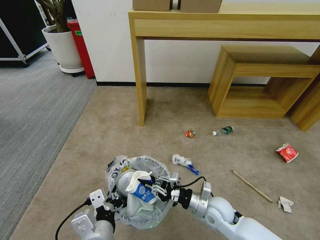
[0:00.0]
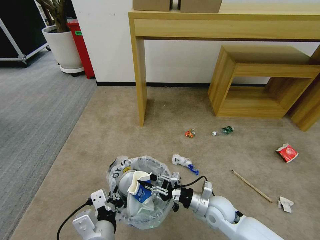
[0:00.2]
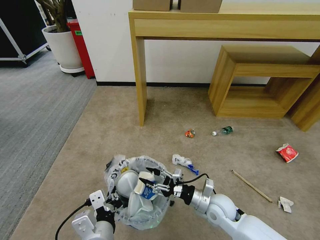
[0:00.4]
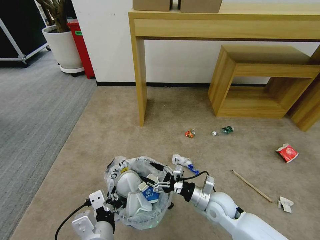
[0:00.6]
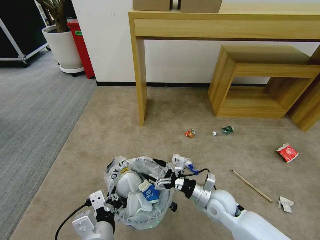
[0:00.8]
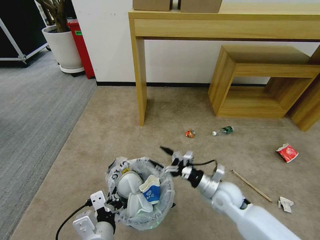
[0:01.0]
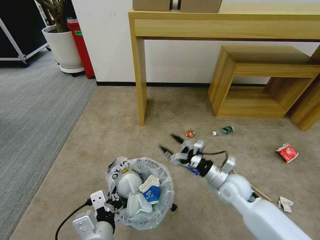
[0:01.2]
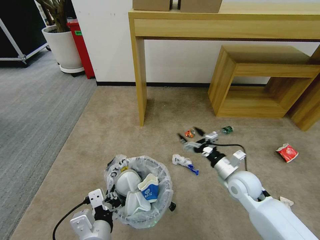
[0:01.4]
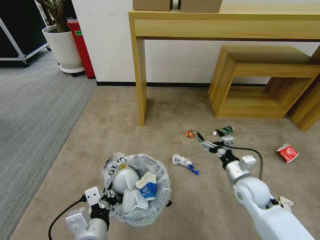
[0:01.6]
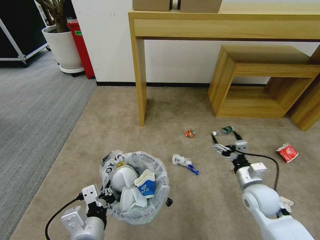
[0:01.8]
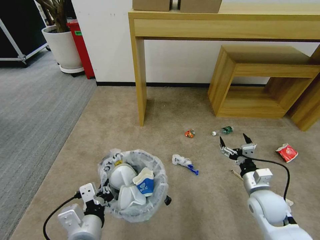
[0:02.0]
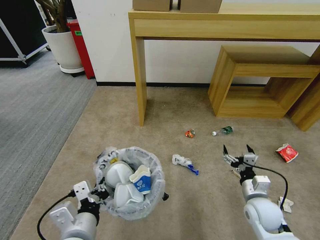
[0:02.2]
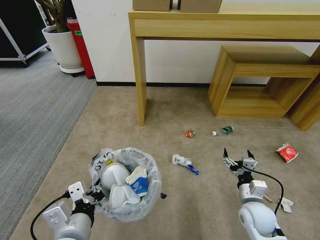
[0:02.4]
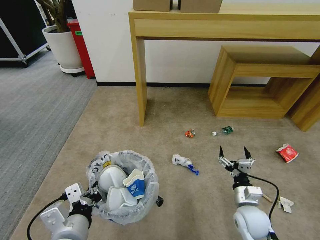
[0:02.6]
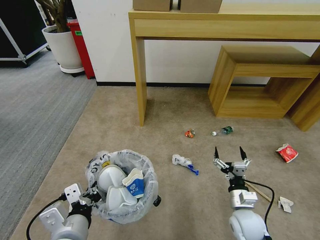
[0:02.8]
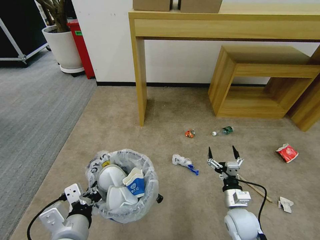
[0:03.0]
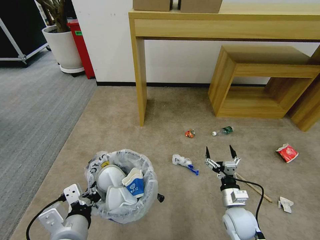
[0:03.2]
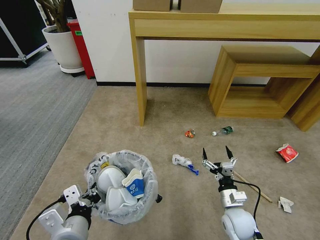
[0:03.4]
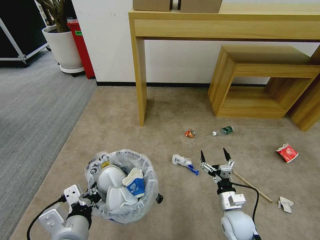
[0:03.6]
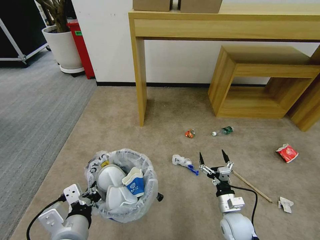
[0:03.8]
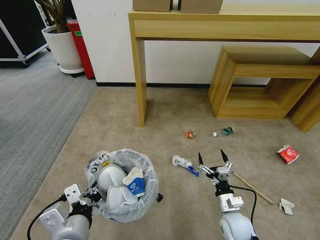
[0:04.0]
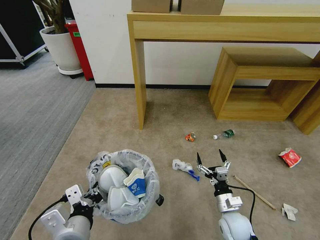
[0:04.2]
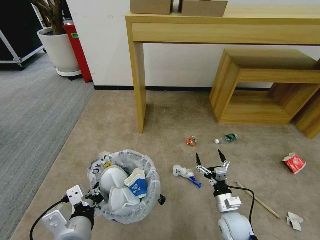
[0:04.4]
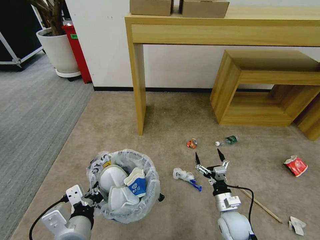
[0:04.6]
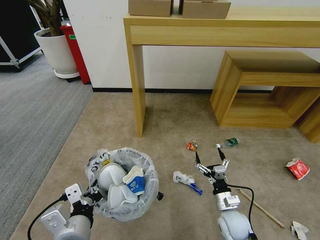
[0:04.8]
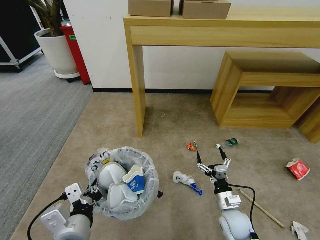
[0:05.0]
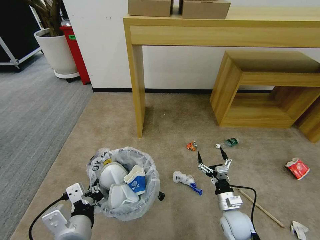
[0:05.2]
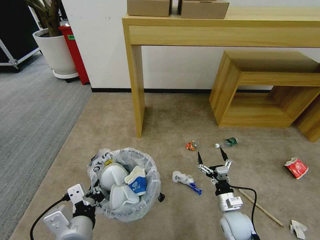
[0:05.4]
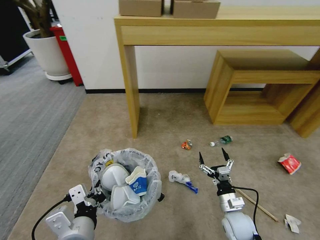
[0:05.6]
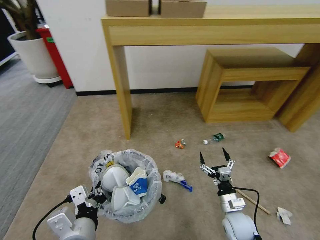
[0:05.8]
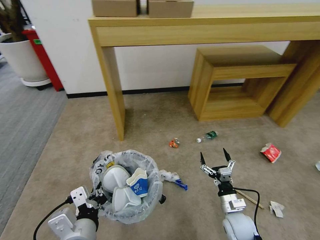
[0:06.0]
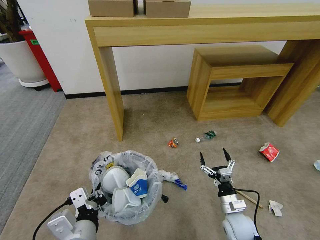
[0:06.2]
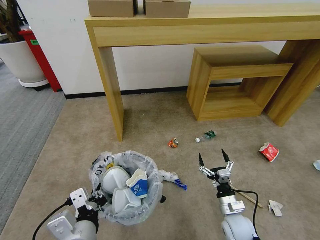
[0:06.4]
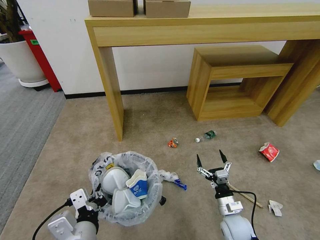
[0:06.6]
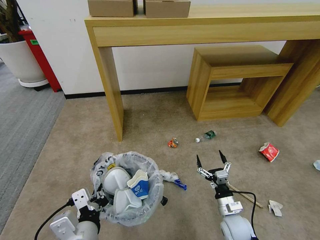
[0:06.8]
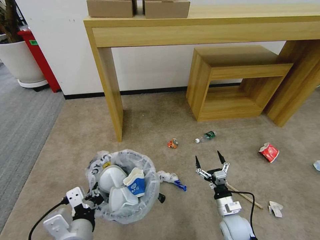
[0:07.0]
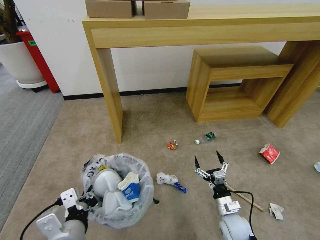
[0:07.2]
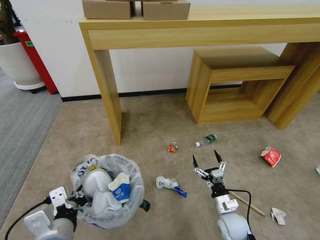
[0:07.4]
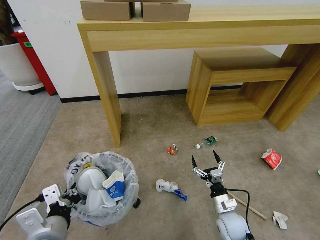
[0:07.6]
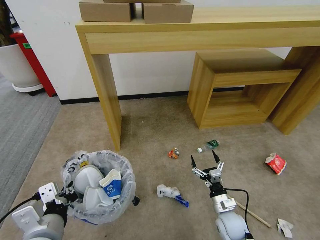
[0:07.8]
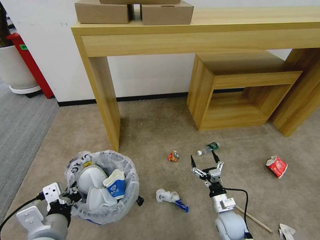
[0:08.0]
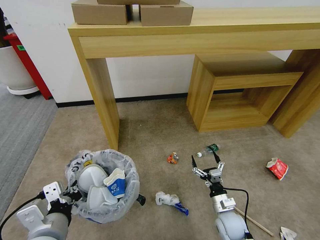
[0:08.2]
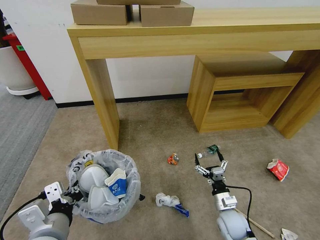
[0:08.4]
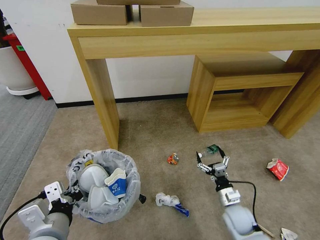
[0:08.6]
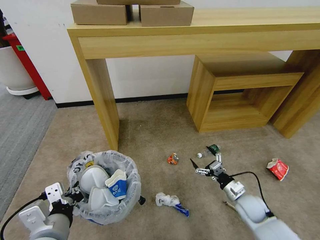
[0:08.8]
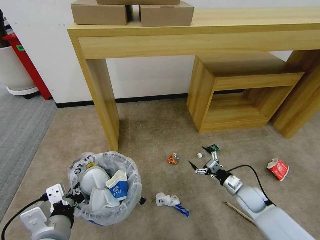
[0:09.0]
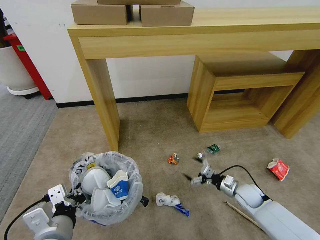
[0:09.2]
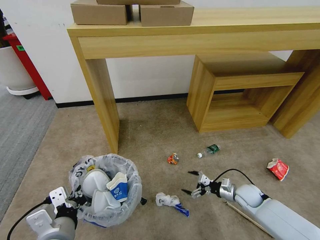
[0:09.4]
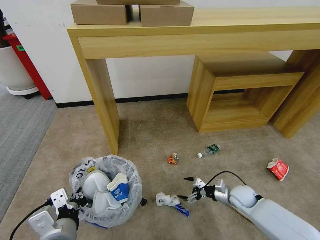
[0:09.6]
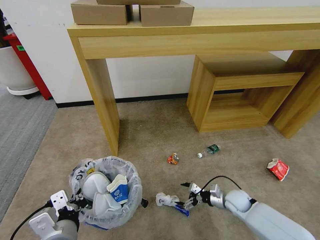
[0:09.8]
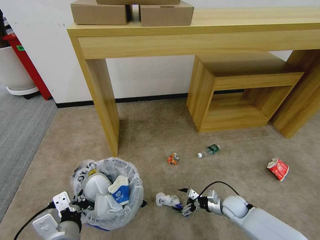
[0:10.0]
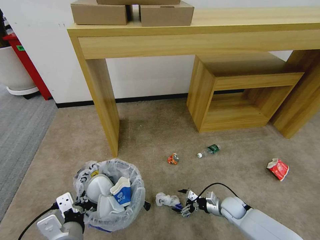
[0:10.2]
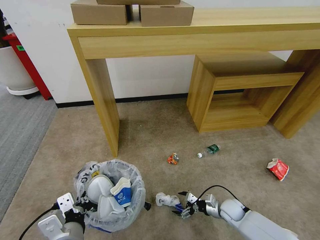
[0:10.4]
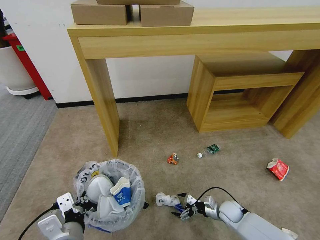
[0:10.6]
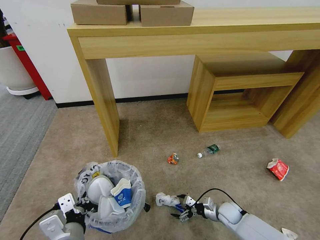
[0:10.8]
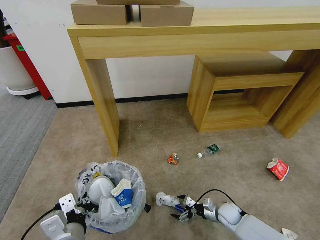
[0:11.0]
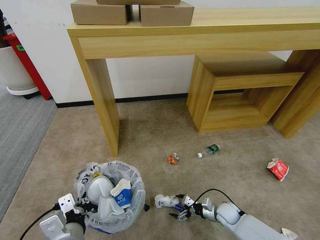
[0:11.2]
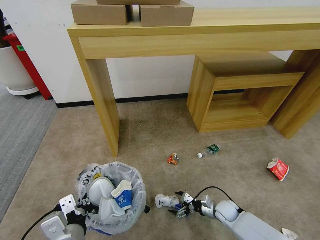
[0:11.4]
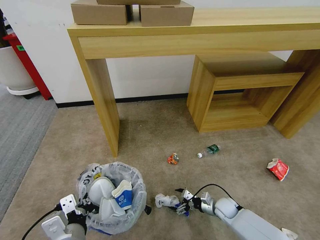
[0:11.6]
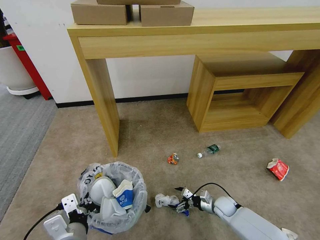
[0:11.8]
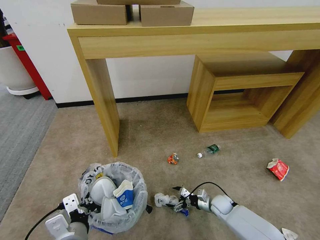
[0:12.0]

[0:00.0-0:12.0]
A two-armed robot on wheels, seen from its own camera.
Task of the whole recording: Pick up the trash bin and place the garbage on the floor into it.
0:00.0 to 0:01.6: The right gripper shifts roughly 10 cm to the right and upward, and opens up.
0:01.6 to 0:03.0: The right gripper goes some 10 cm backward and downward.
0:06.0 to 0:07.6: The left gripper travels to the left by roughly 5 cm.
0:07.6 to 0:09.0: The right gripper heads to the right and forward, covering about 10 cm.
0:09.0 to 0:10.4: The right gripper travels downward by approximately 10 cm.
0:10.4 to 0:12.0: There are only small adjustments of the grippers.

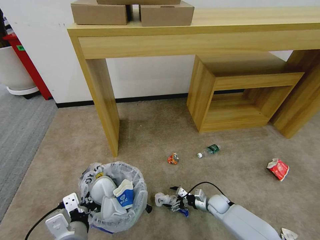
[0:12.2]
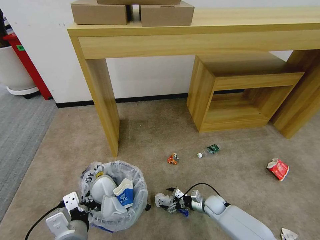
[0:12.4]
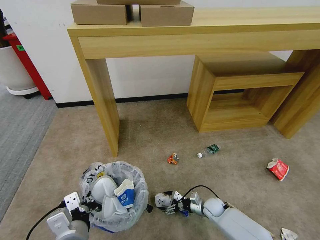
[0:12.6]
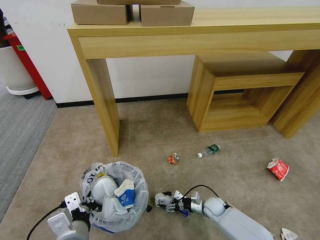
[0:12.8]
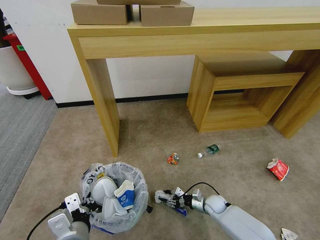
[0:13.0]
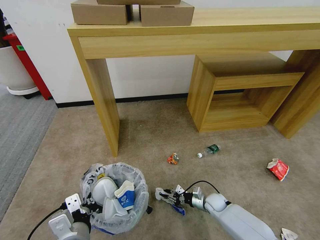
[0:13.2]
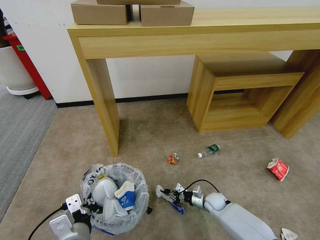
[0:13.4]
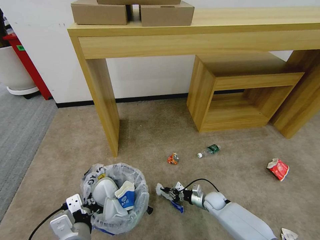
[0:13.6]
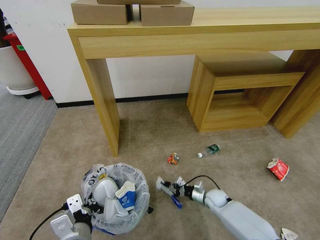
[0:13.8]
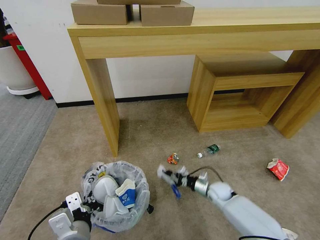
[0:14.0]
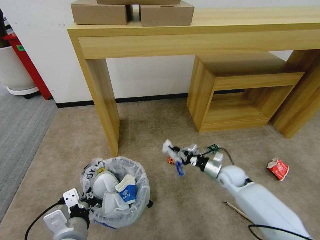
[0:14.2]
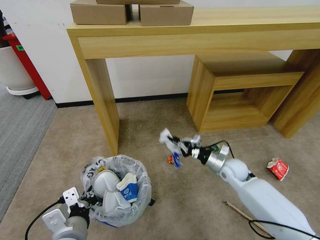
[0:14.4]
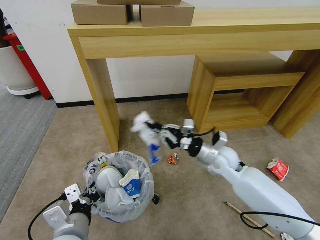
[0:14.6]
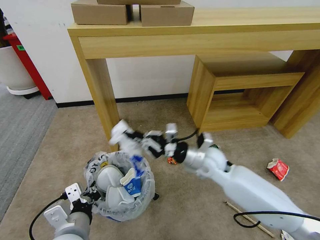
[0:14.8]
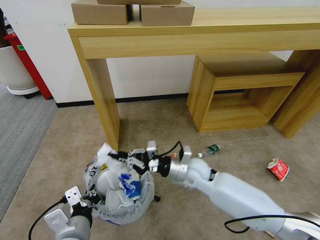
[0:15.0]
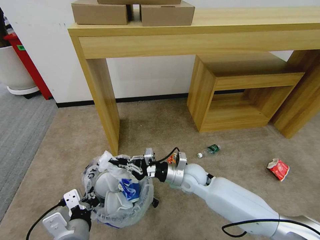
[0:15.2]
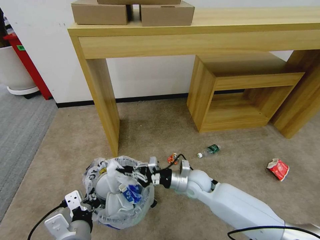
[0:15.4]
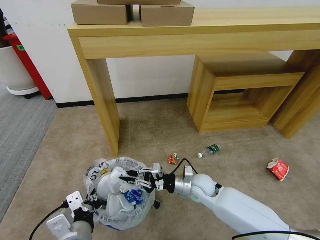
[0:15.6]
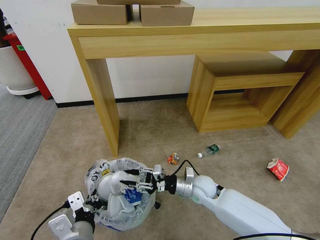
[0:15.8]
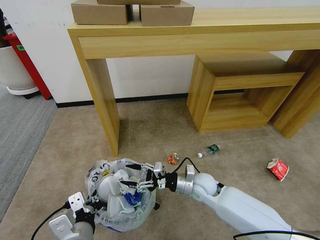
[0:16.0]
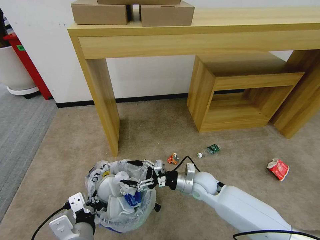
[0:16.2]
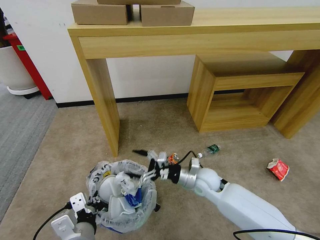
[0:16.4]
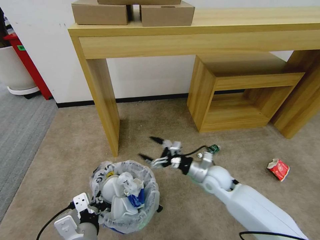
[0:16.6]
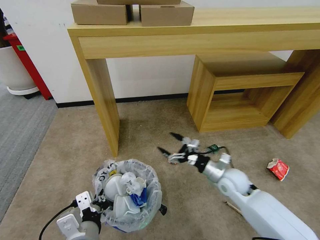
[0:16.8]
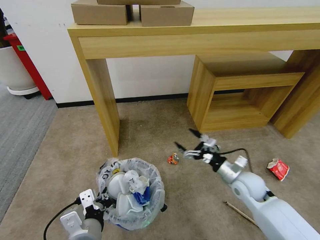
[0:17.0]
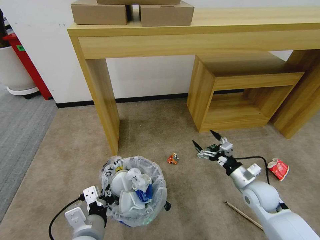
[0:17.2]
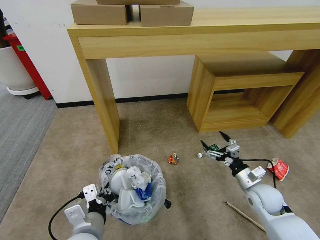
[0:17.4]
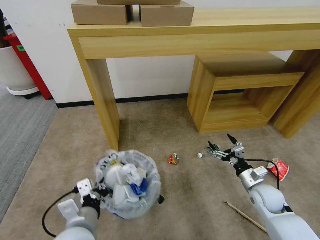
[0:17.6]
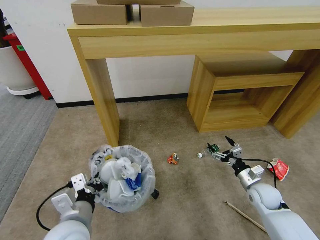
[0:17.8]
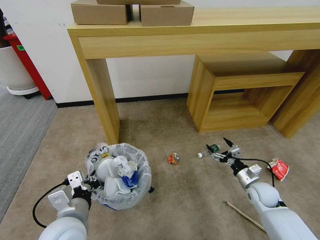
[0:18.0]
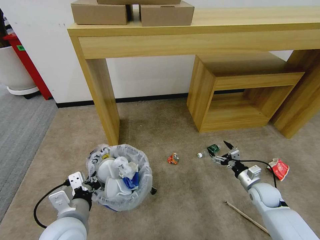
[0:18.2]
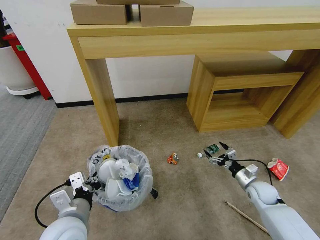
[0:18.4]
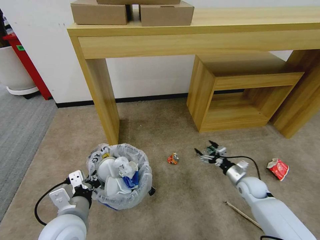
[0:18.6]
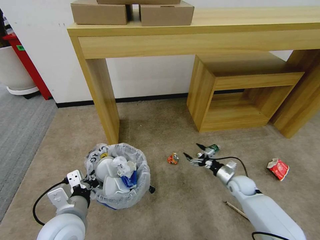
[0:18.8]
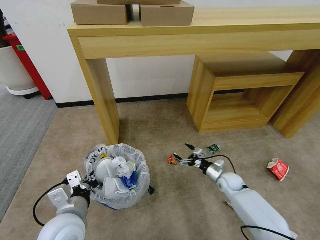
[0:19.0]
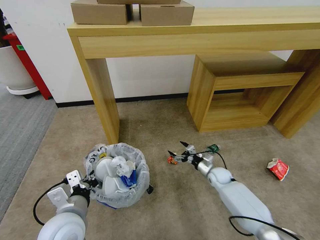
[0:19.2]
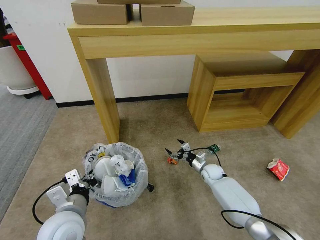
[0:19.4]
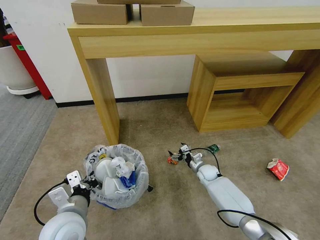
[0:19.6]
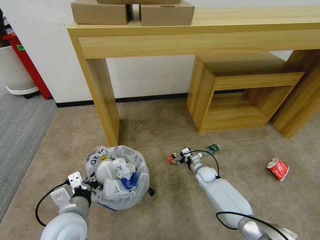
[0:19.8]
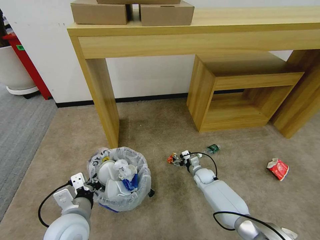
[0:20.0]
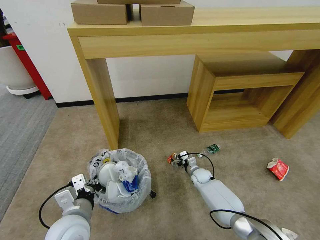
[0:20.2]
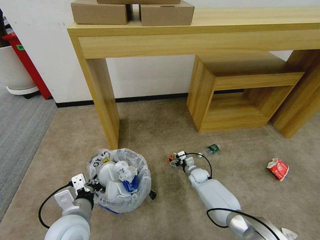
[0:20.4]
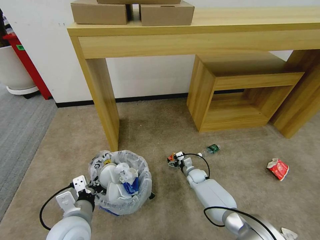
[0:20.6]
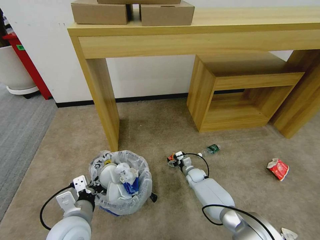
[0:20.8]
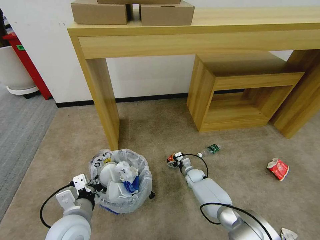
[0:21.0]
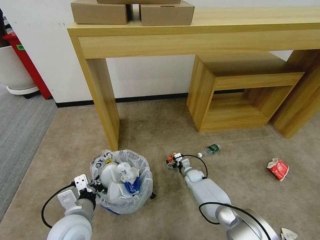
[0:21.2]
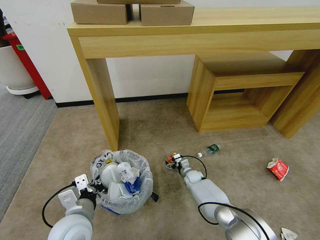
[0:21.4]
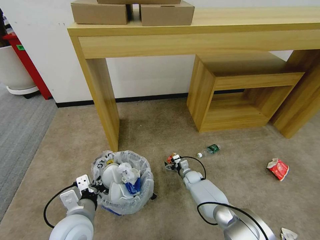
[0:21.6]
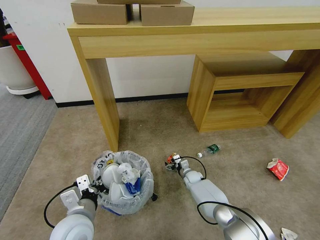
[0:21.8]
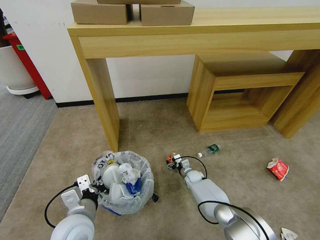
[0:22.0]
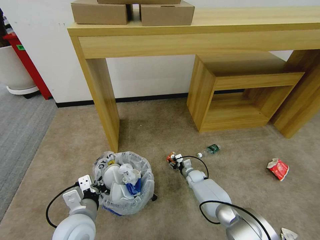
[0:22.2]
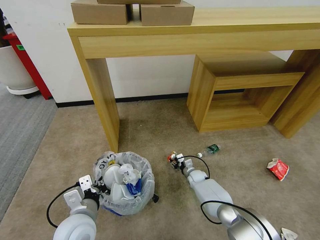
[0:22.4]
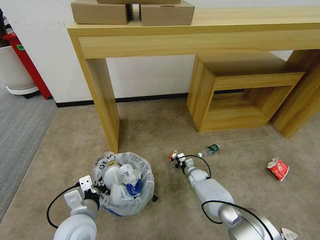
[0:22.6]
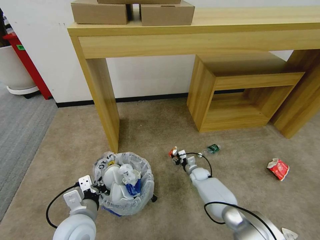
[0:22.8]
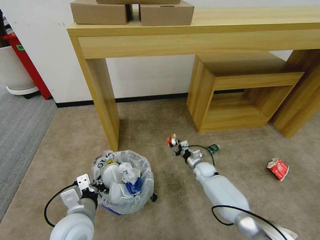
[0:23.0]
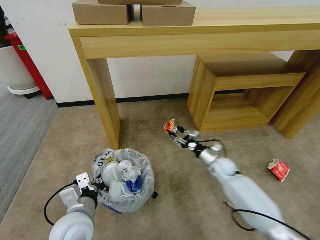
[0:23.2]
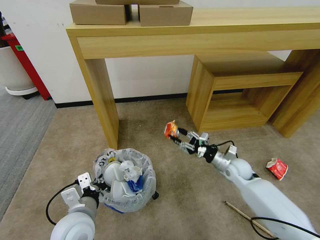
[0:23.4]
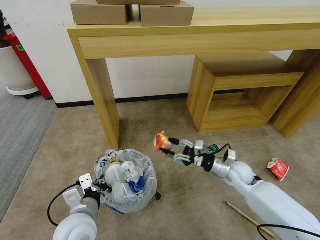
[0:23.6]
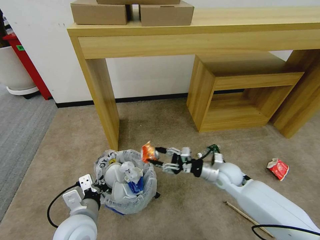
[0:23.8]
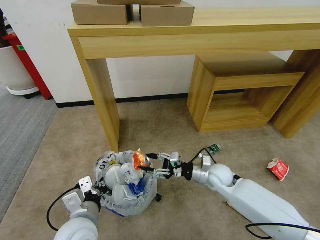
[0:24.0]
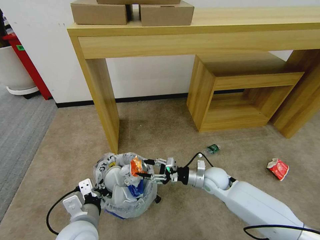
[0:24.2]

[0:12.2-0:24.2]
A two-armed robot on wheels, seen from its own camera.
Task of the whole recording: Pick up the trash bin and place the garbage on the floor into it.
0:12.2 to 0:13.8: The right gripper closes up.
0:13.8 to 0:15.2: The right gripper is displaced upward and to the left by roughly 25 cm.
0:15.2 to 0:16.6: The right gripper heads to the right, covering roughly 10 cm, and opens.
0:16.6 to 0:18.2: The left gripper is displaced forward by about 5 cm, while the right gripper shifts some 25 cm to the right and downward.
0:18.2 to 0:19.8: The right gripper is displaced to the left, forward and downward by approximately 25 cm.
0:19.8 to 0:21.2: The right gripper shifts by roughly 5 cm.
0:21.2 to 0:22.6: The right gripper closes.
0:22.6 to 0:24.2: The right gripper is displaced upward and backward by approximately 20 cm.
